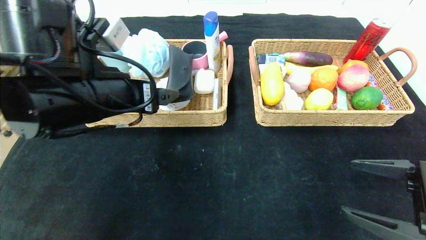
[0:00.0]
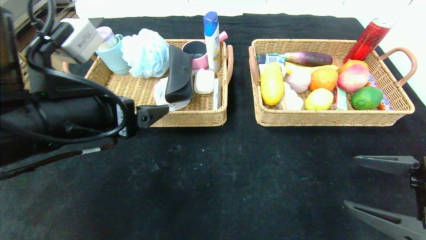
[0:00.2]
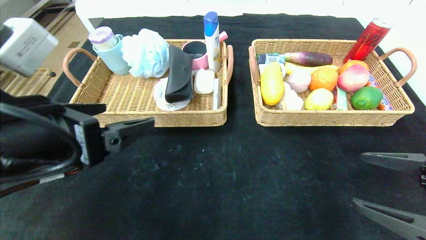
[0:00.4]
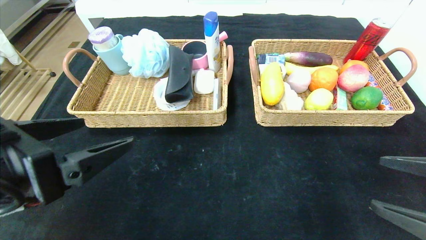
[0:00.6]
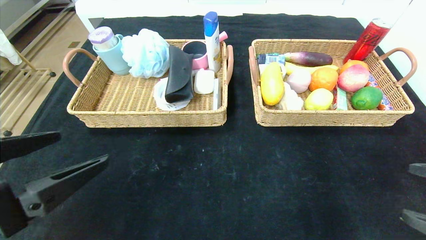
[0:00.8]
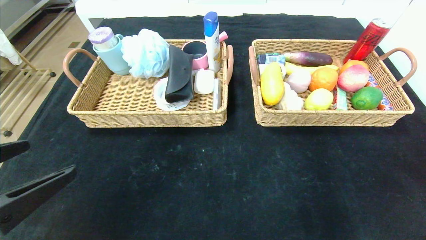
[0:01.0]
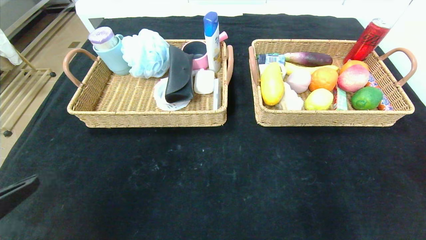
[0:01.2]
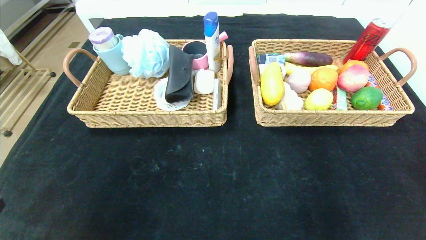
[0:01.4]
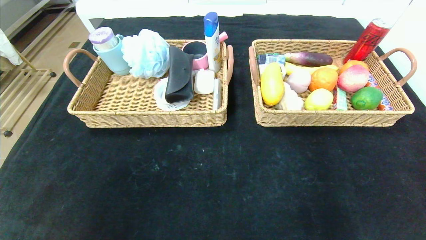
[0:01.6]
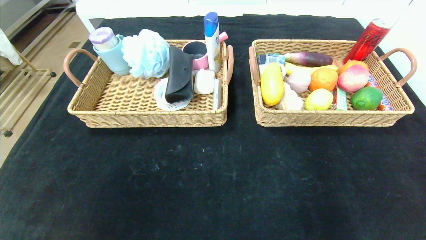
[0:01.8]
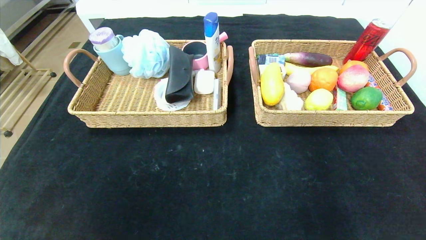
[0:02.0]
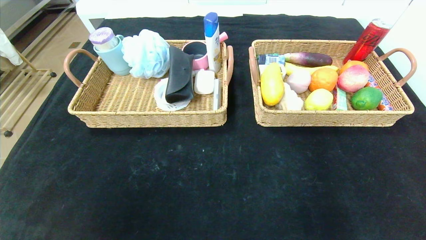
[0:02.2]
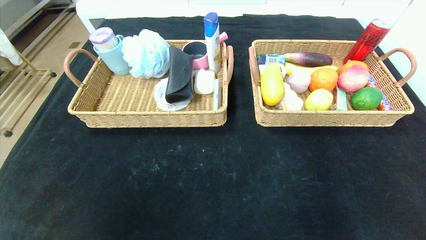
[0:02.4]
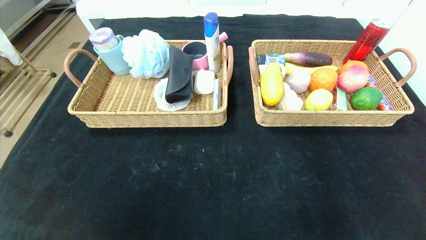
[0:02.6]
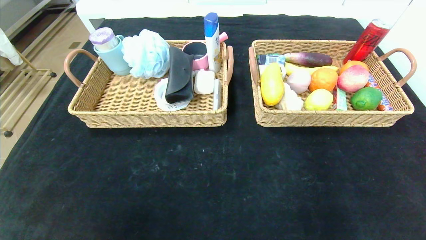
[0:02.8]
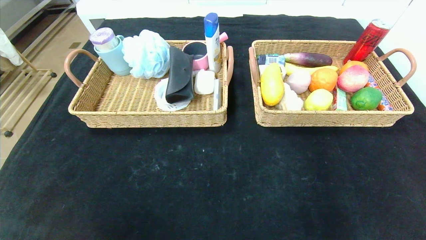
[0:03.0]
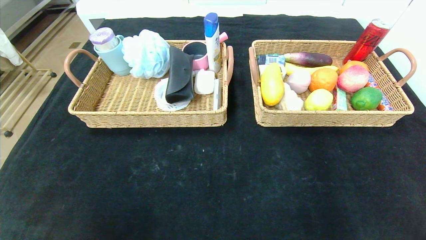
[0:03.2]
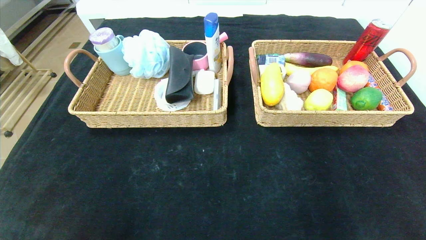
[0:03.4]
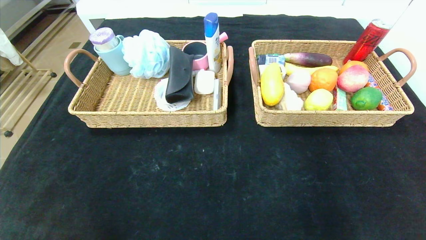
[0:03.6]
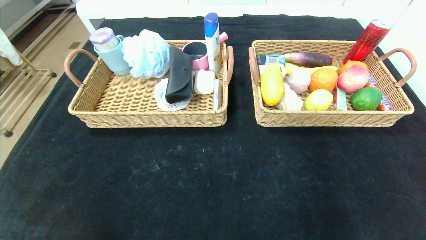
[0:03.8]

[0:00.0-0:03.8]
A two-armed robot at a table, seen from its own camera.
0:00.0 to 0:01.2: The right gripper moves backward and upward, about 15 cm; the left gripper travels backward and to the left by some 25 cm.
0:01.2 to 0:02.6: The right gripper heads backward and downward, covering about 15 cm, while the left gripper goes about 15 cm backward.

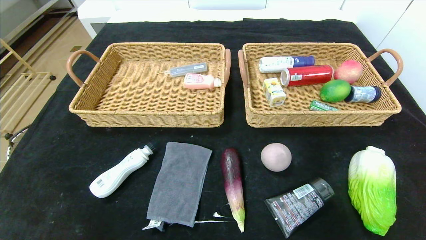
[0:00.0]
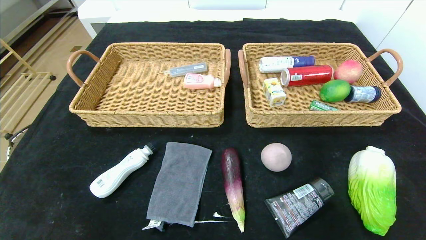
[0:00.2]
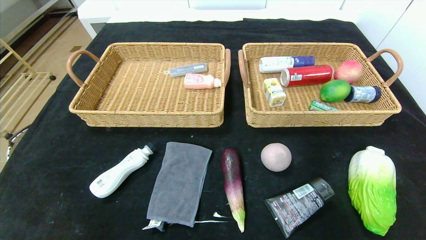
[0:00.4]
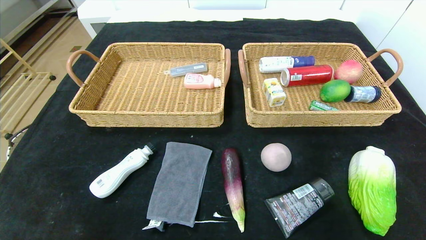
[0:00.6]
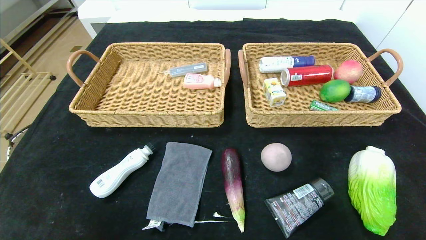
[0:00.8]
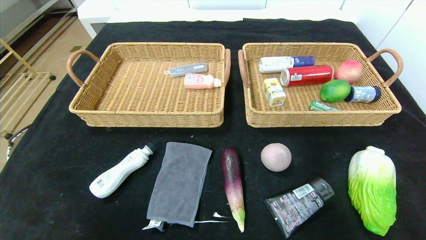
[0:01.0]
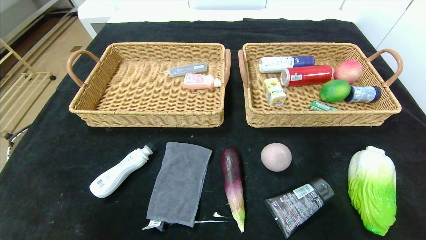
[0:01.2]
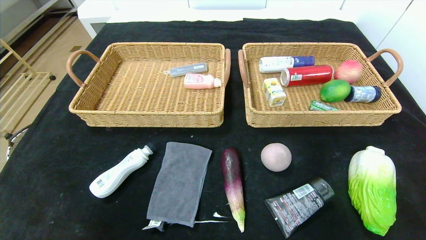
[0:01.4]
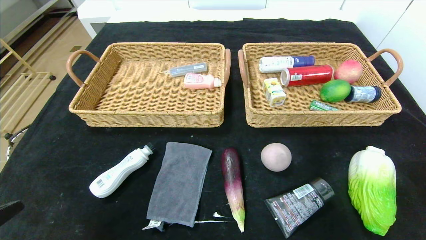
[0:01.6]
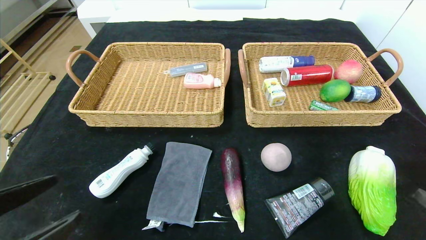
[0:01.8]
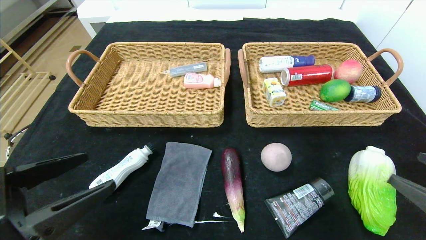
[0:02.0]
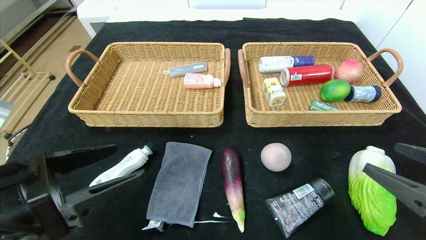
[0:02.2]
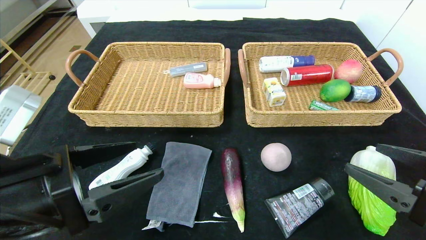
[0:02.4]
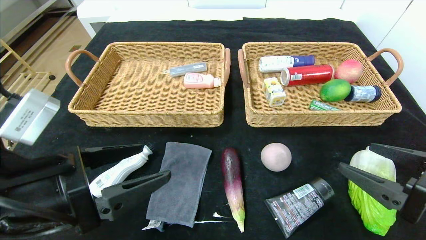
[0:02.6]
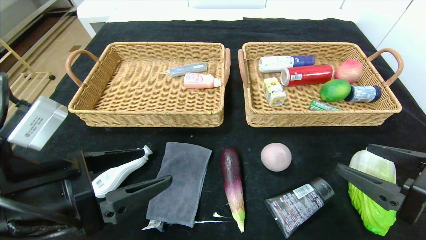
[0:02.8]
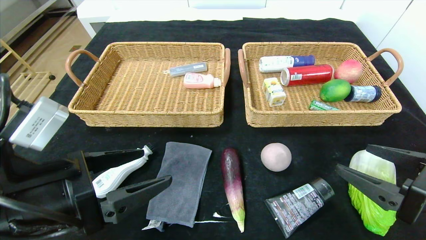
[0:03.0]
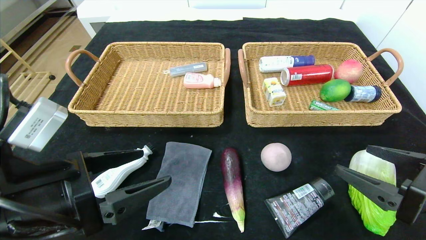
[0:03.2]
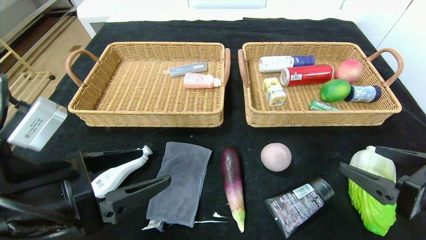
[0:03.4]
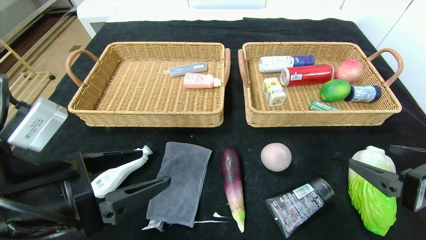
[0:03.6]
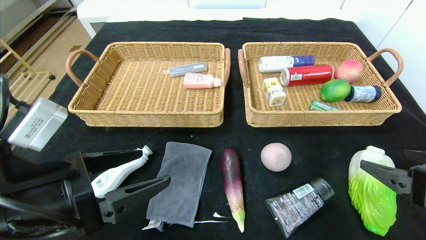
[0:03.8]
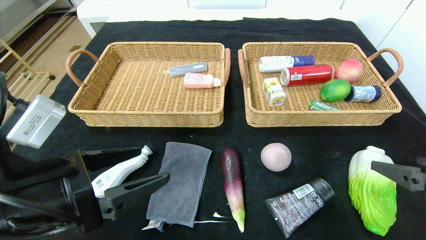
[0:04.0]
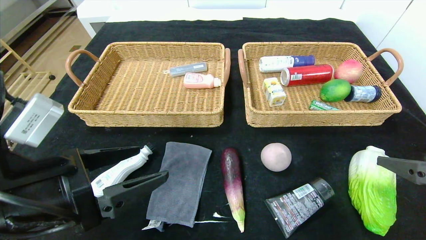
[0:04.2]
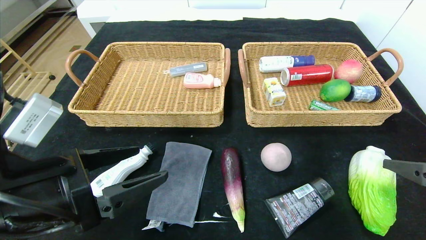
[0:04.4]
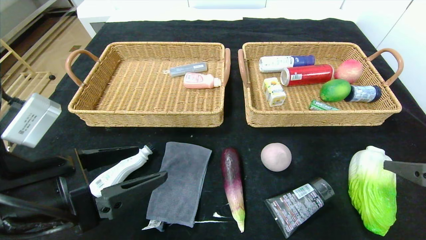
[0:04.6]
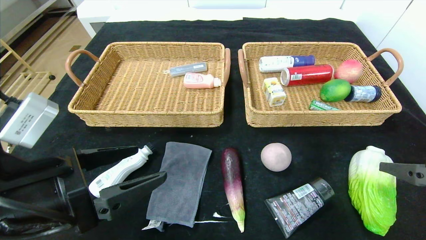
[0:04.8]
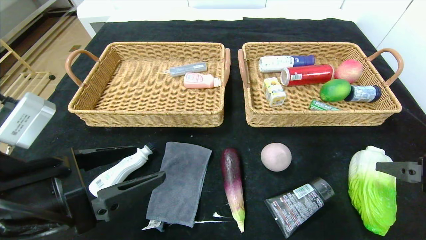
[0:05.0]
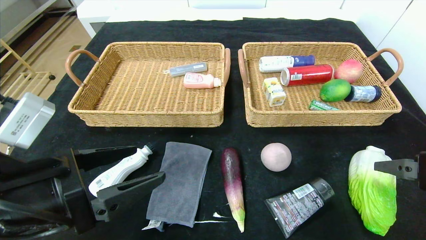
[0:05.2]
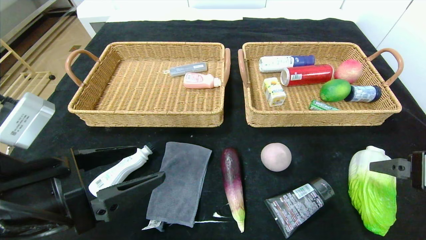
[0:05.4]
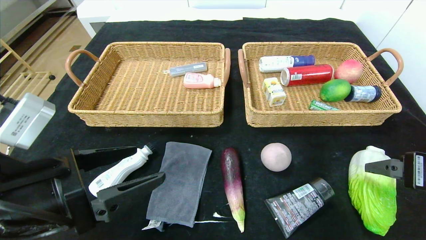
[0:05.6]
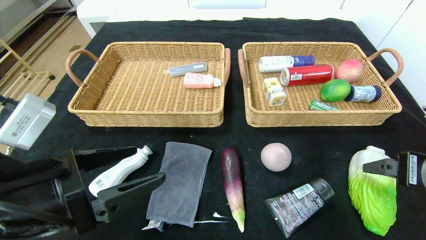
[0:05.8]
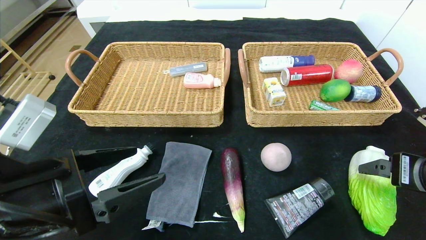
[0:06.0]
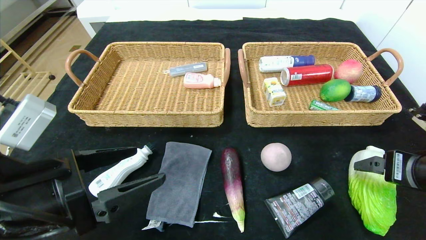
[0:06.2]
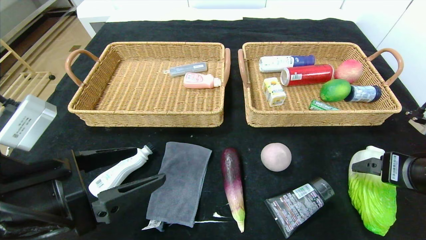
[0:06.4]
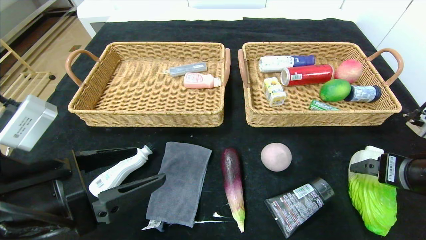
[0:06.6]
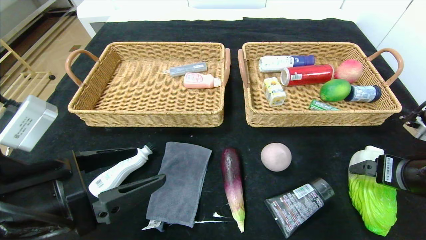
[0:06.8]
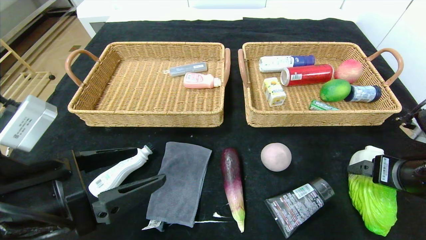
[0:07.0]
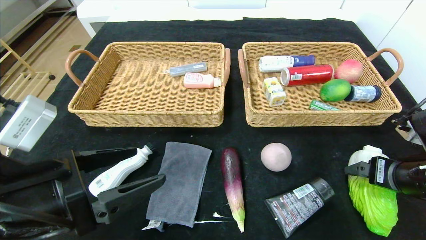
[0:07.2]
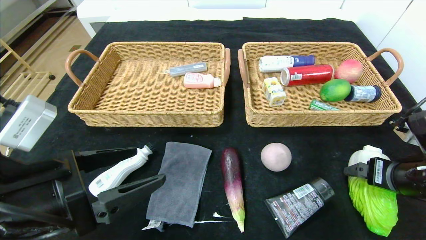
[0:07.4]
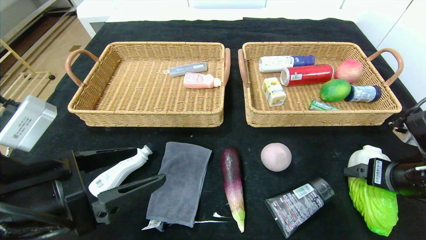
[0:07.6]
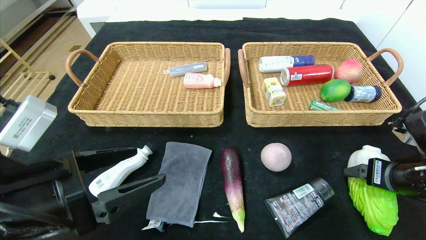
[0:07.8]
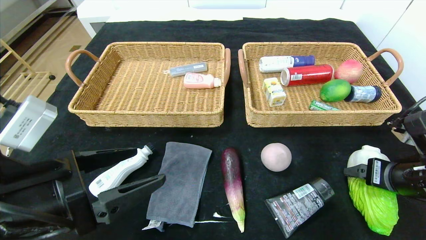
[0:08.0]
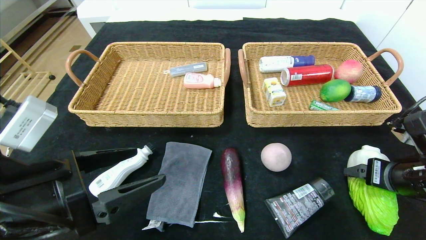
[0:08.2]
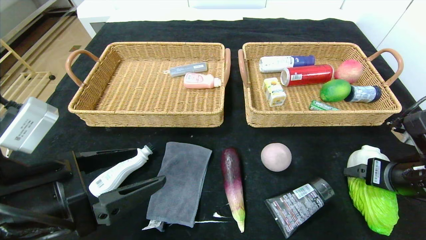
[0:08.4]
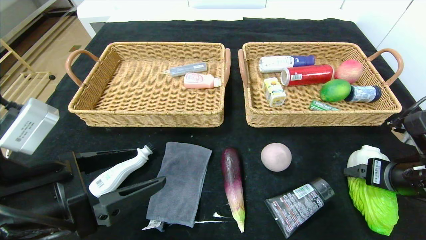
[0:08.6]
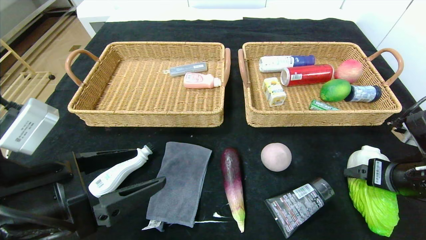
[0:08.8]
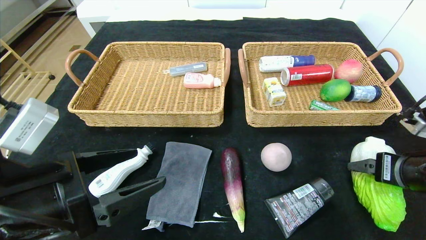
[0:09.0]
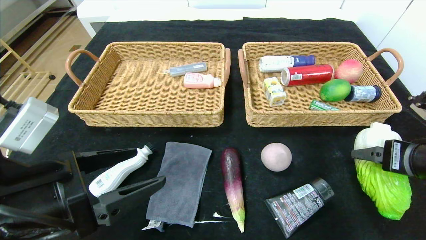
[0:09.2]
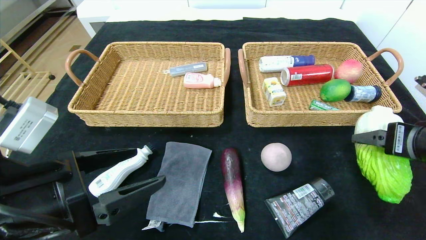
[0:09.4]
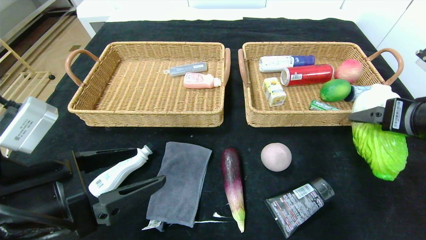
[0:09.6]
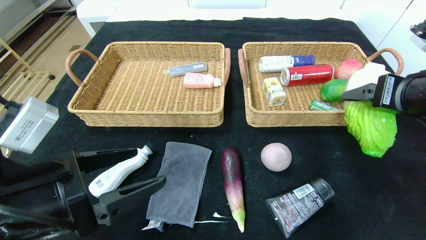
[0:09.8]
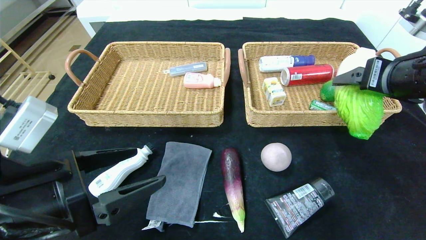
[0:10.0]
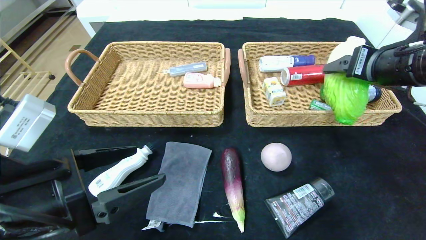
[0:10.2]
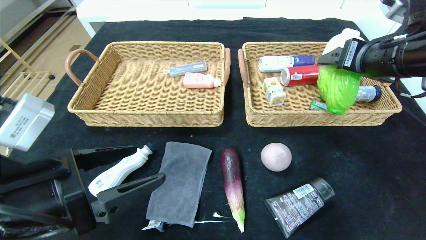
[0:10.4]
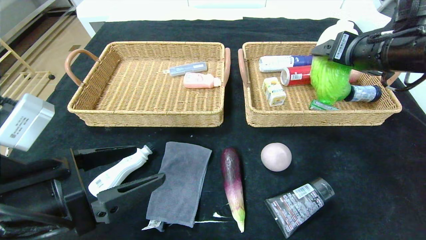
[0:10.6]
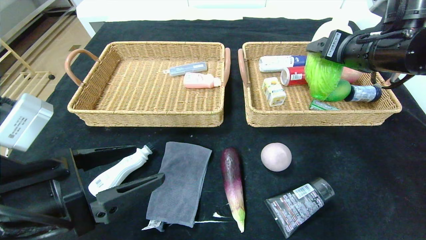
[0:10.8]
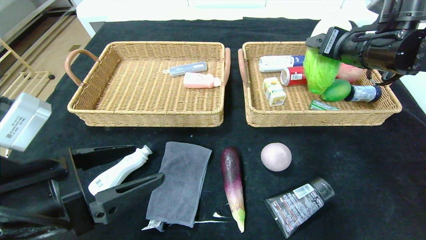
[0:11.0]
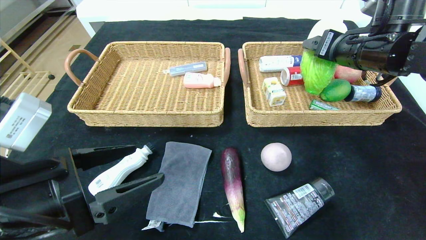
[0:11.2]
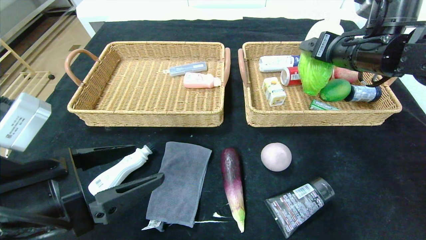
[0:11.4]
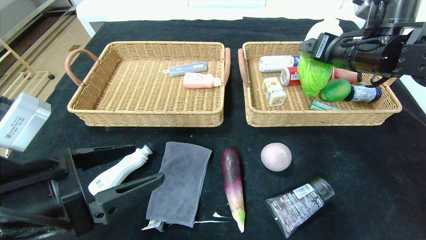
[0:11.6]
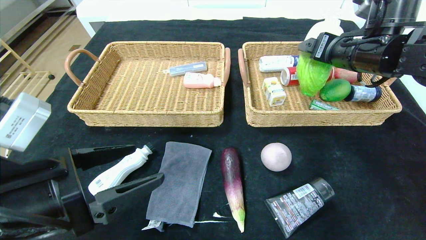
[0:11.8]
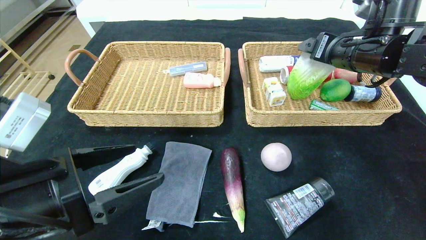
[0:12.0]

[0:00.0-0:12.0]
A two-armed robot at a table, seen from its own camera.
0:01.6 to 0:03.0: The right gripper travels forward and to the left by approximately 10 cm. Meanwhile the left gripper shifts roughly 15 cm forward and to the right.
0:03.0 to 0:04.4: The right gripper ends up approximately 5 cm from where it was.
0:04.4 to 0:06.0: The right gripper ends up some 5 cm from where it was.
0:06.0 to 0:07.6: The right gripper shifts by roughly 5 cm.
0:07.6 to 0:09.0: The grippers make only small movements.
0:09.0 to 0:10.4: The right gripper shifts roughly 15 cm upward and forward.
0:10.4 to 0:12.0: The right gripper shifts approximately 5 cm forward.

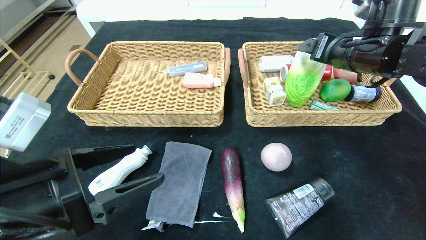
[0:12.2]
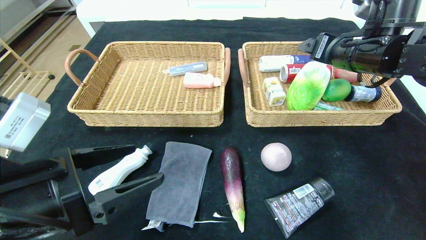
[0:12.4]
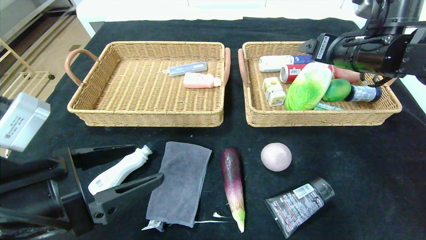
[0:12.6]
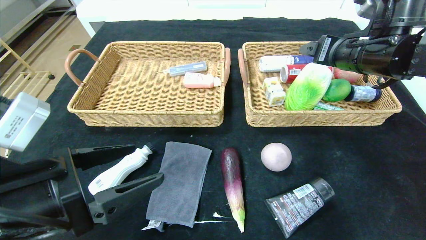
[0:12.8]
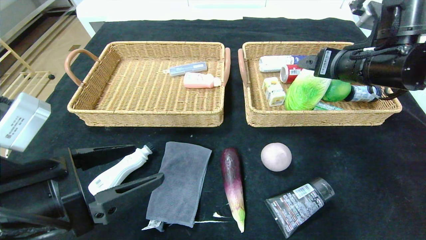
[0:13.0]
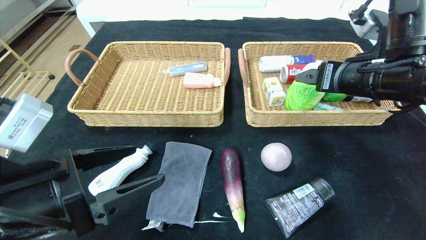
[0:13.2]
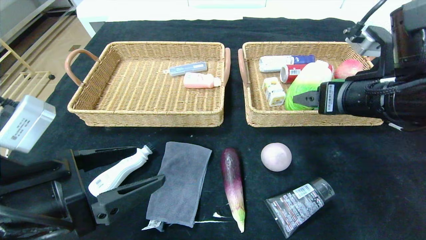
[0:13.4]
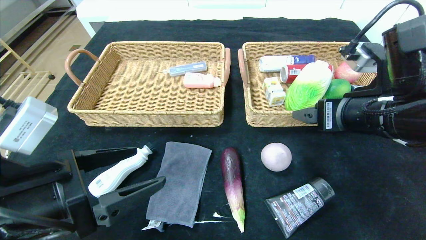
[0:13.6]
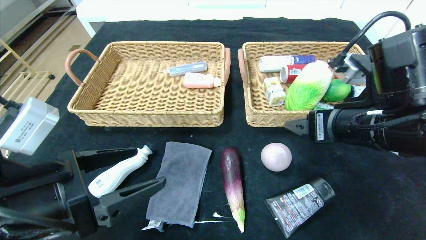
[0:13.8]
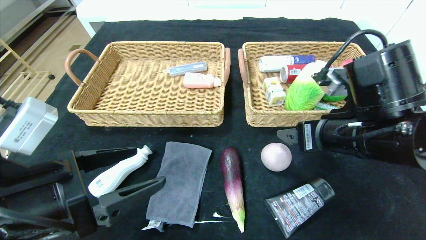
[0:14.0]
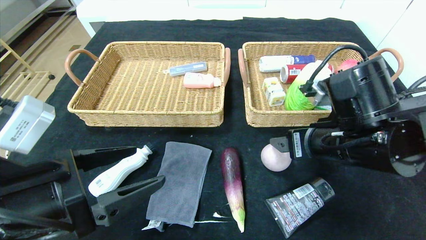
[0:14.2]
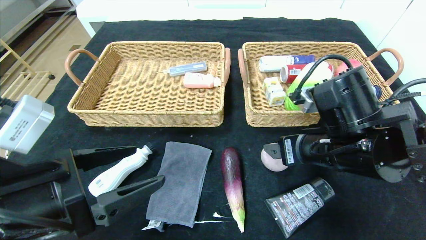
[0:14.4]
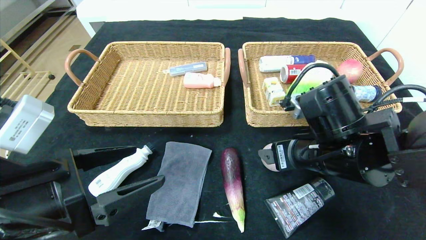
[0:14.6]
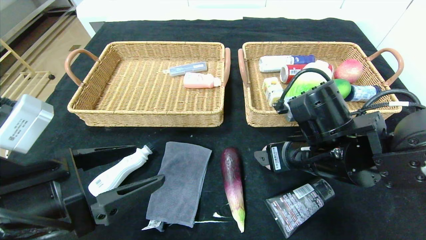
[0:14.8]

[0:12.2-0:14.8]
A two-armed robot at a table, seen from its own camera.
Step, 0:12.2 to 0:14.2: Pick up the chinese cabbage and put it in the right basket.
0:12.2 to 0:13.4: The right gripper heads backward, covering roughly 10 cm.
0:13.4 to 0:14.8: The right gripper shifts some 10 cm downward and to the left.
